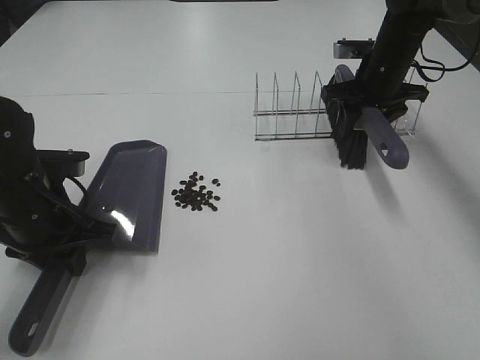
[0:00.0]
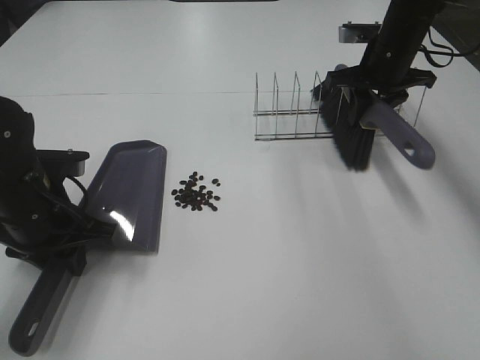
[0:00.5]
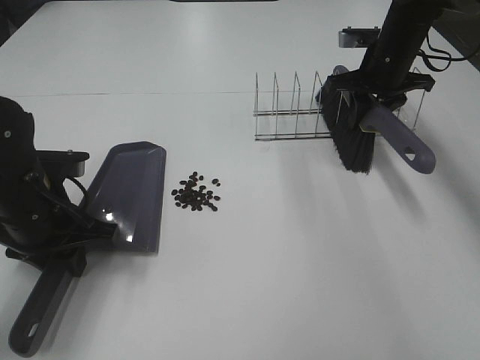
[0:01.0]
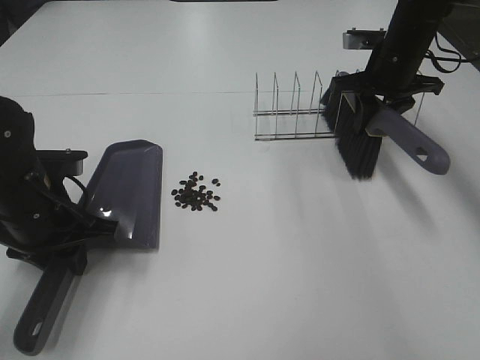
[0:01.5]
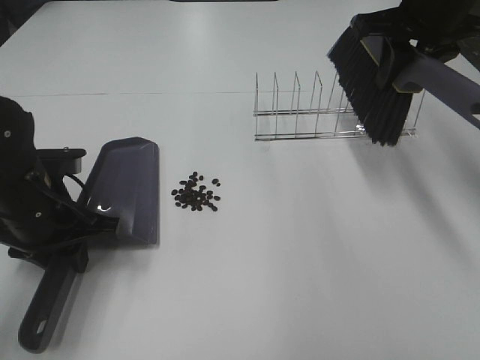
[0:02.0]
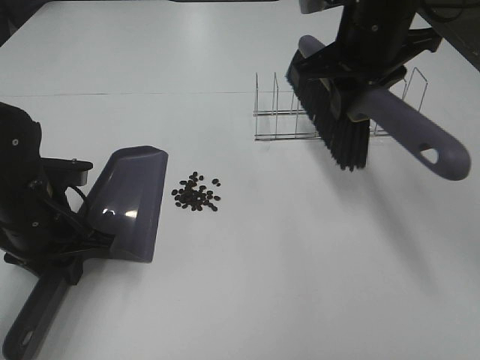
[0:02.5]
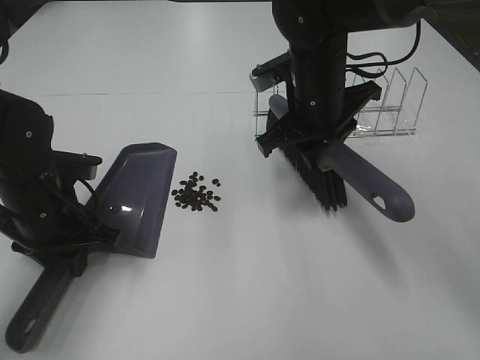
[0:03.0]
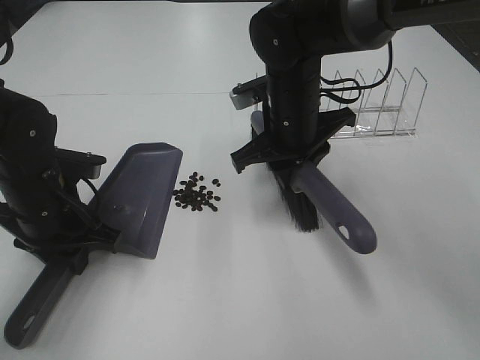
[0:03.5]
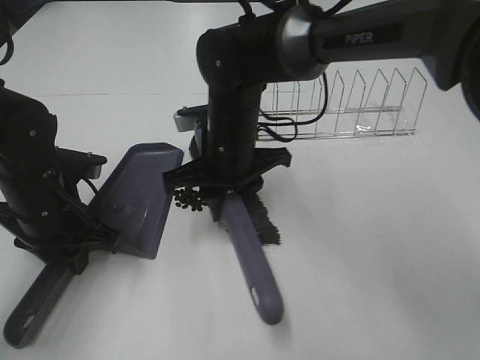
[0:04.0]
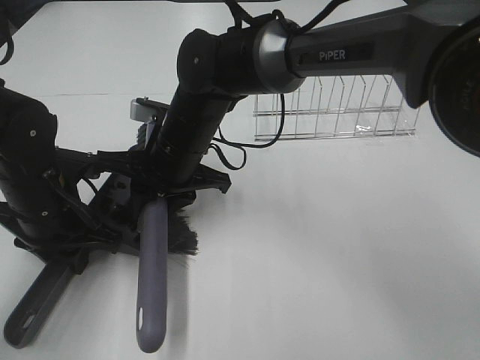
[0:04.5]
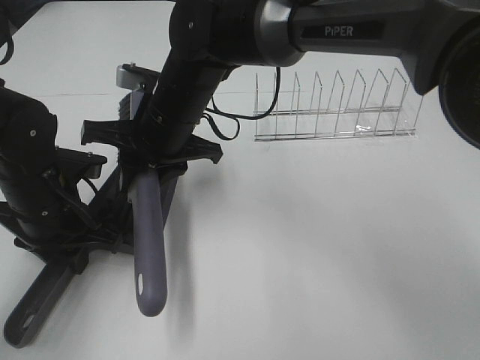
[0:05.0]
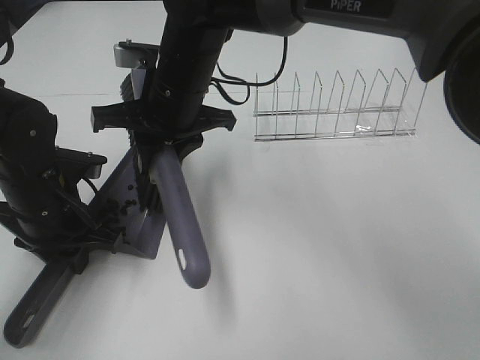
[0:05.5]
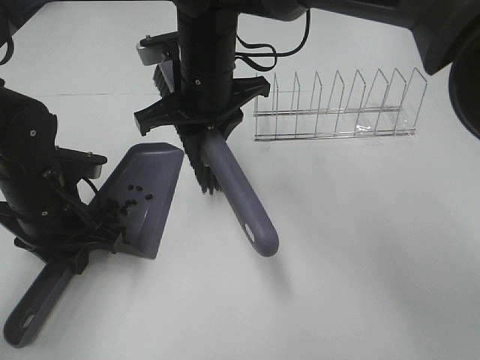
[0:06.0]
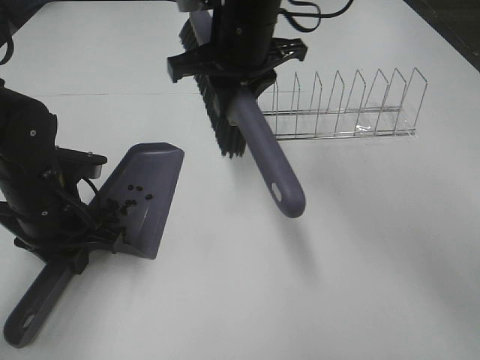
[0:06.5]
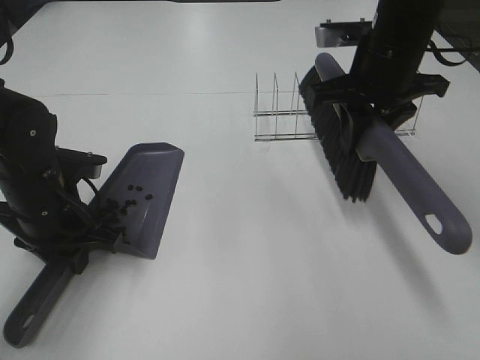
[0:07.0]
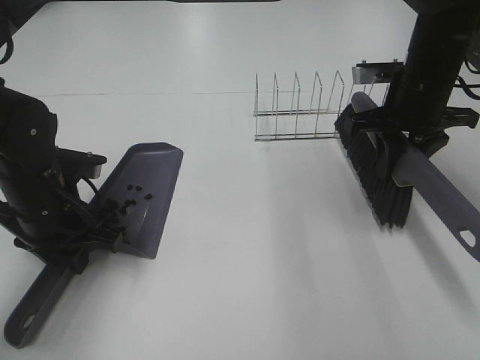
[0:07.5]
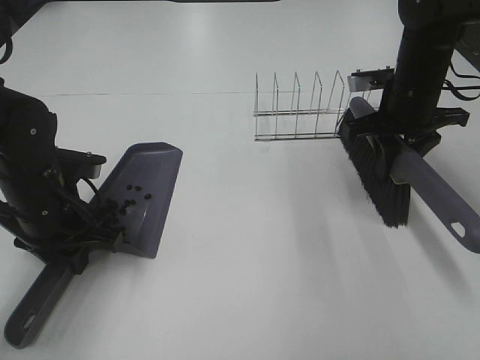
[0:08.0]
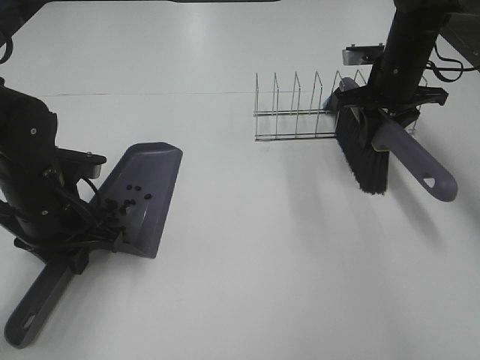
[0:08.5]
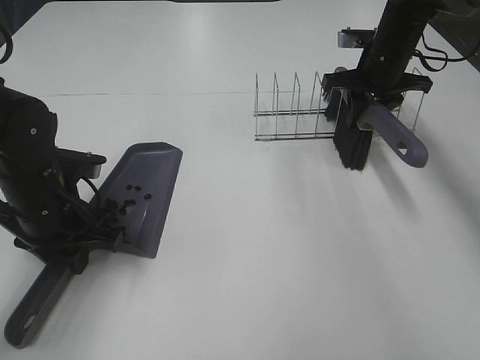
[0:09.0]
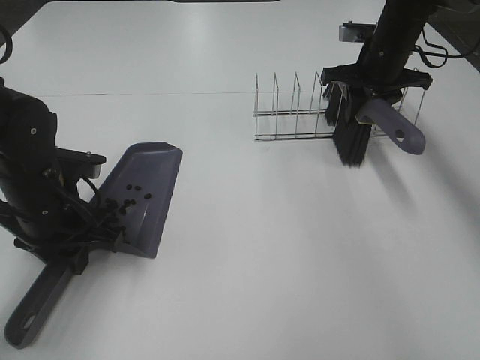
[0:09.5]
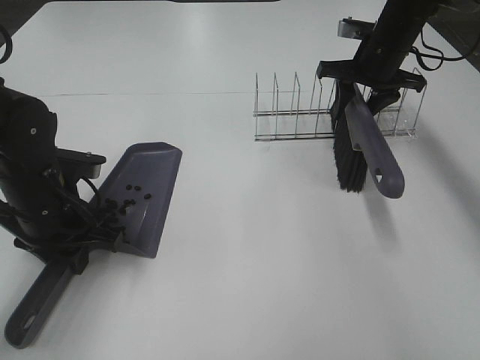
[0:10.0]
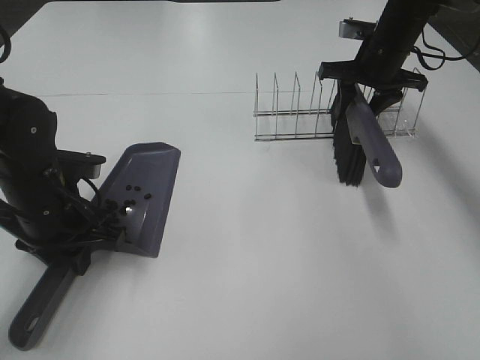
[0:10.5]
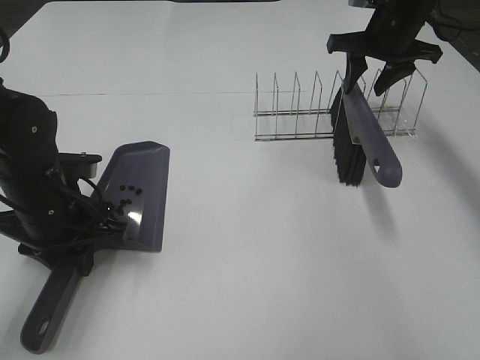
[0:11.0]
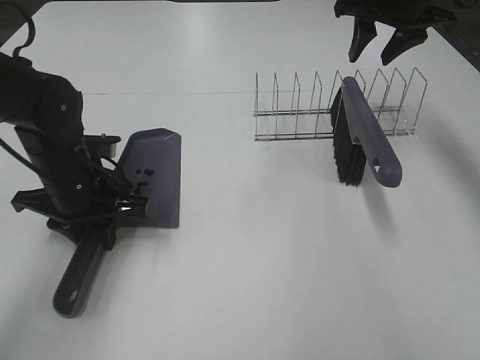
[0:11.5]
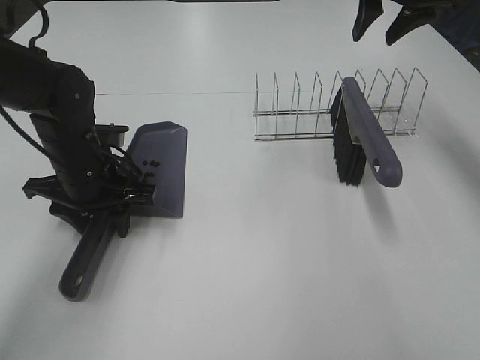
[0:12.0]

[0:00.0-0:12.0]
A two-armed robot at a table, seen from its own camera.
Task of the whole recording: Sweep Coffee Bean.
Step, 0:00.0 to 0:05.5: Right hand:sweep the coffee beans into the dustpan.
Step, 0:06.0 to 0:10.5: Right hand:place the broom on the rack.
0:00.0 to 0:02.0: The right gripper moves upward and backward, about 15 cm.
0:02.0 to 0:04.0: The right gripper shifts some 30 cm to the left and downward.
0:04.0 to 0:06.0: The right gripper heads upward, covering some 10 cm.
0:06.0 to 0:08.0: The right gripper heads to the right, covering approximately 25 cm.
0:08.0 to 0:10.0: The right gripper is displaced forward by approximately 10 cm.
0:10.0 to 0:12.0: The left gripper heads forward, covering about 5 cm. Meanwhile the right gripper goes about 10 cm upward.

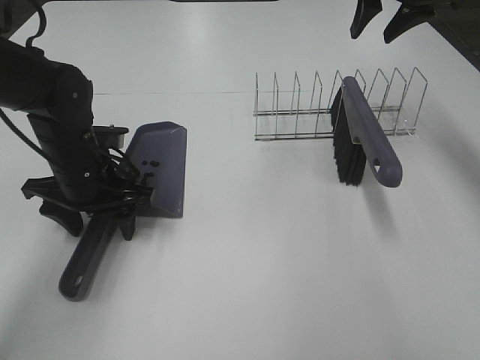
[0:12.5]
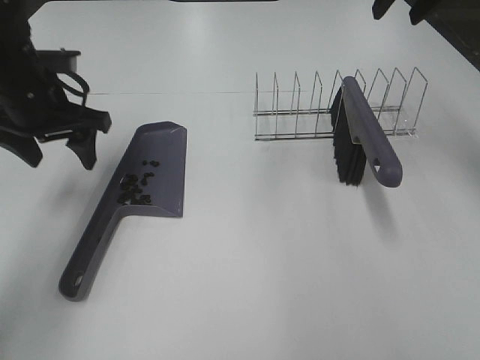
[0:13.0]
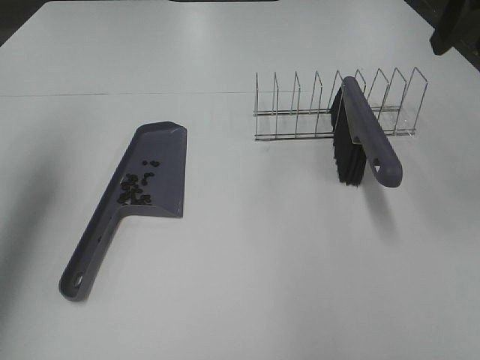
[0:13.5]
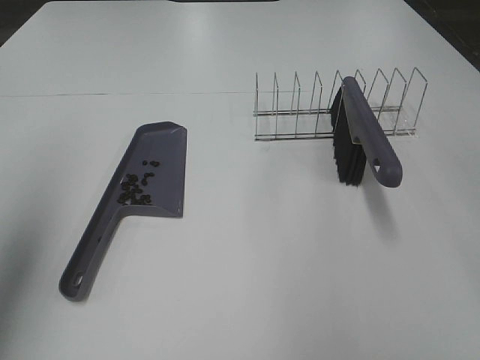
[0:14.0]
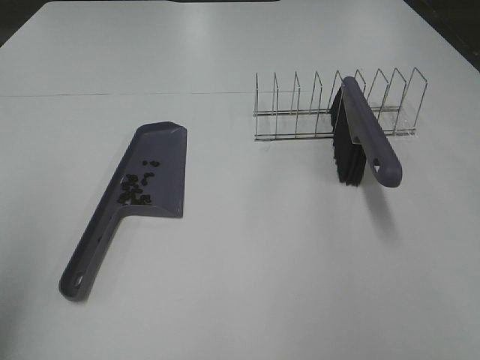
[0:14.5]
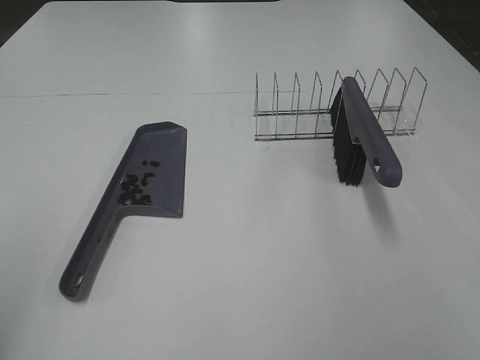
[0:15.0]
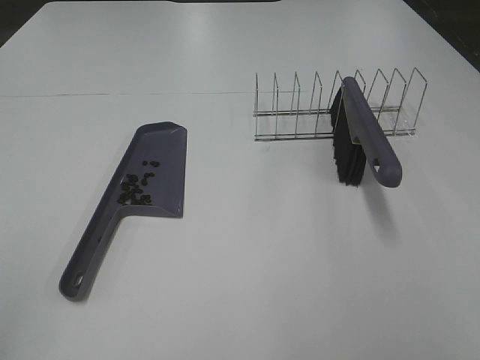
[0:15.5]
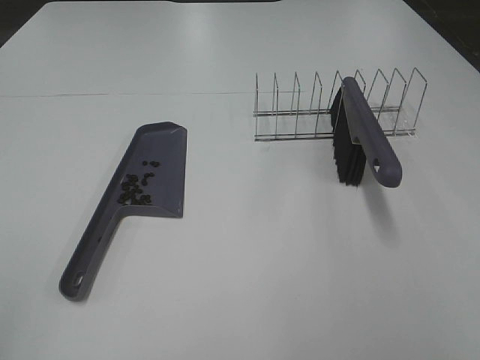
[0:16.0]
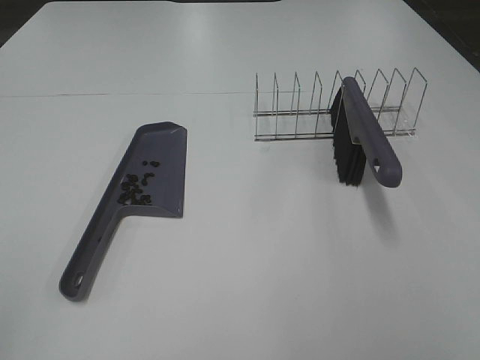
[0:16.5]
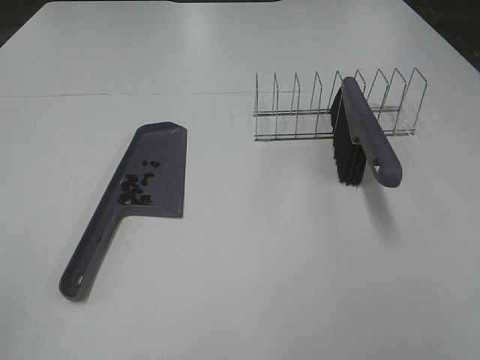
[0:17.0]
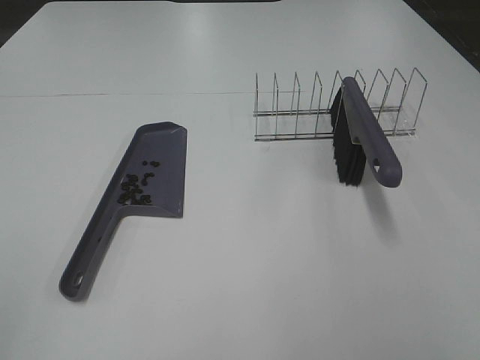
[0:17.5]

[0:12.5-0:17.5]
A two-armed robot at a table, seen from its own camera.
Task of the whole recording: Sweep Coffee Bean.
0:12.5 to 0:15.0: The left gripper is displaced backward, upward and to the left by some 35 cm; the right gripper goes roughly 50 cm backward.

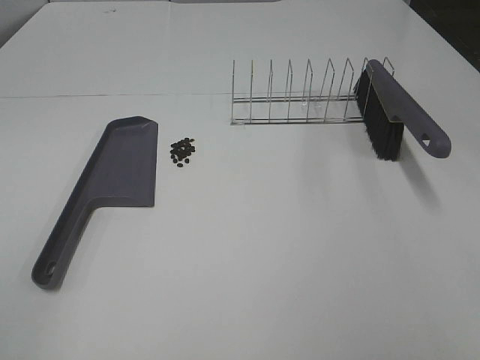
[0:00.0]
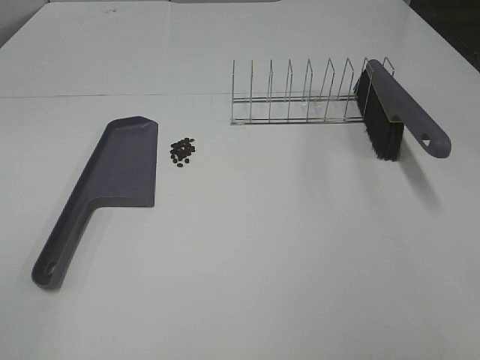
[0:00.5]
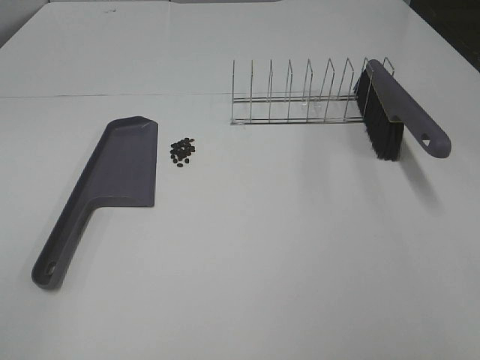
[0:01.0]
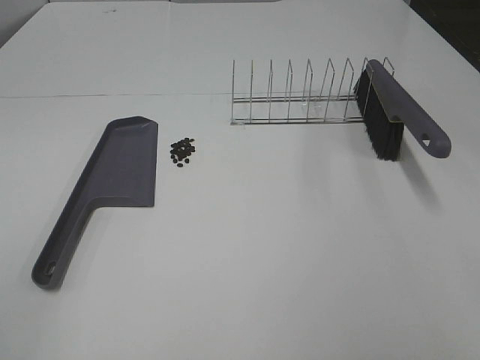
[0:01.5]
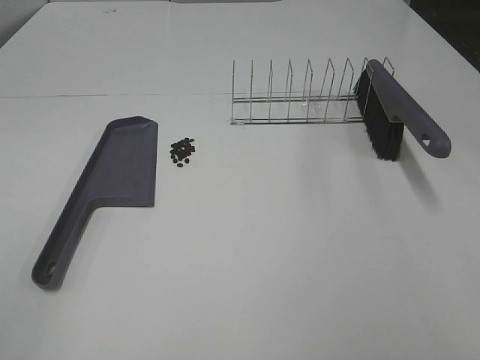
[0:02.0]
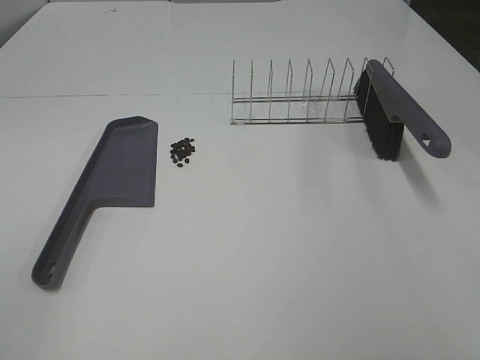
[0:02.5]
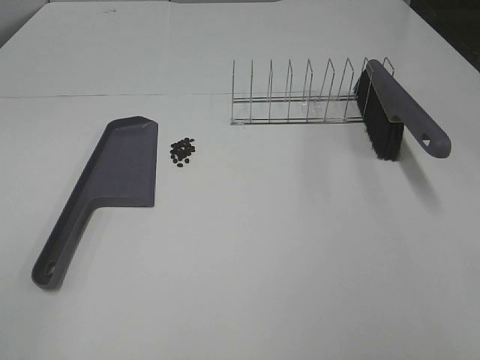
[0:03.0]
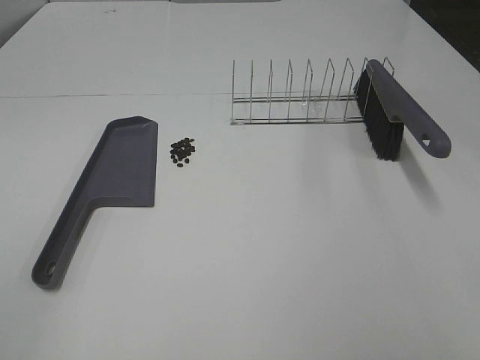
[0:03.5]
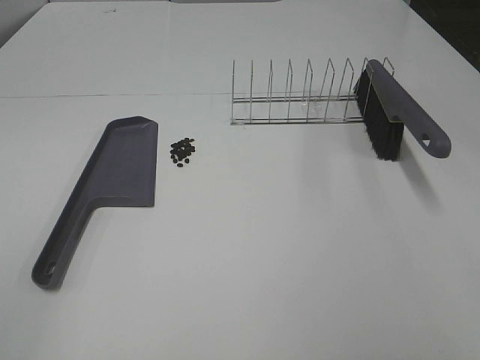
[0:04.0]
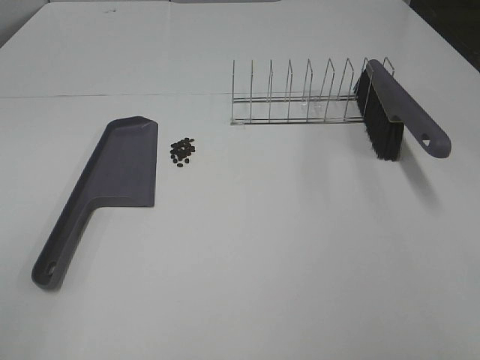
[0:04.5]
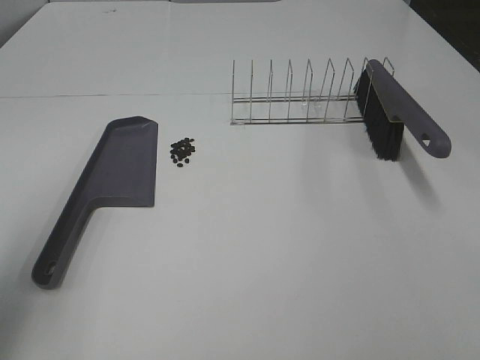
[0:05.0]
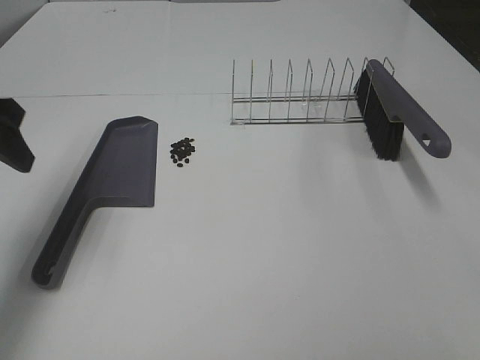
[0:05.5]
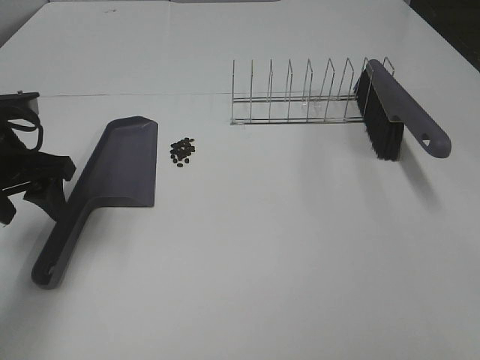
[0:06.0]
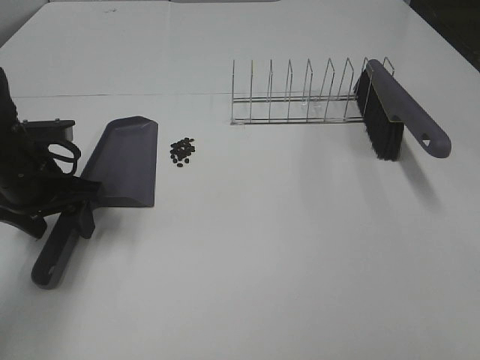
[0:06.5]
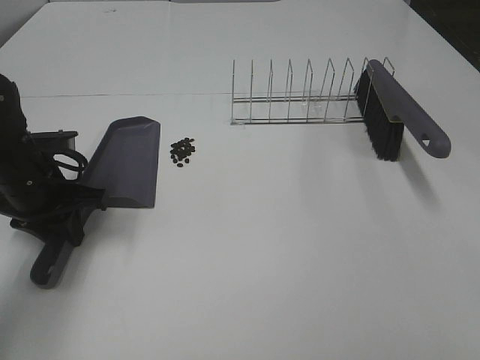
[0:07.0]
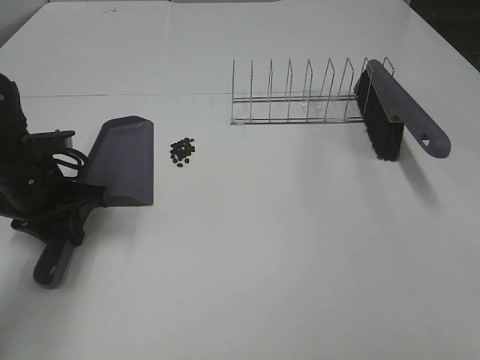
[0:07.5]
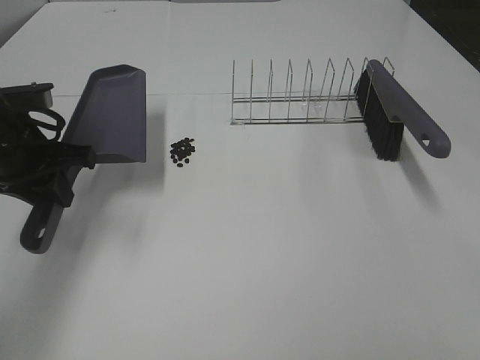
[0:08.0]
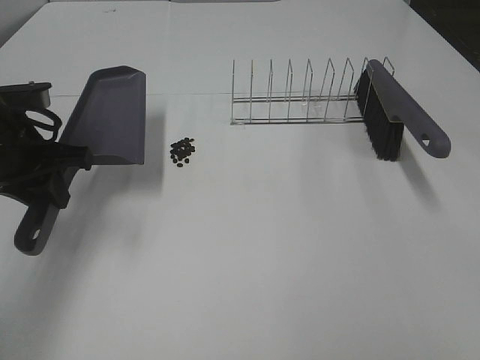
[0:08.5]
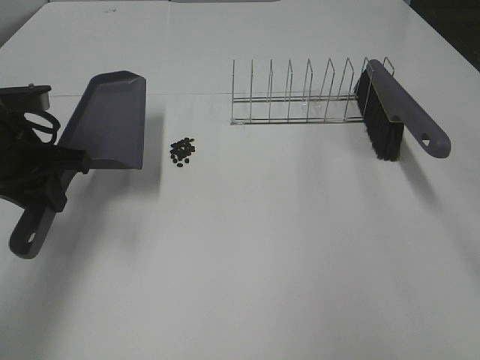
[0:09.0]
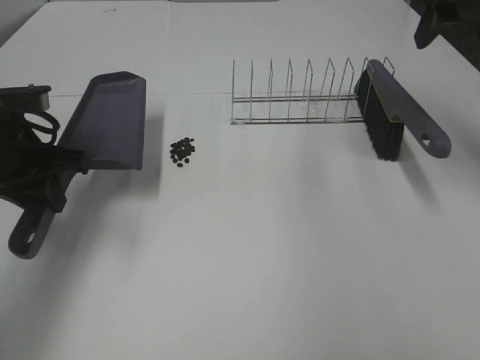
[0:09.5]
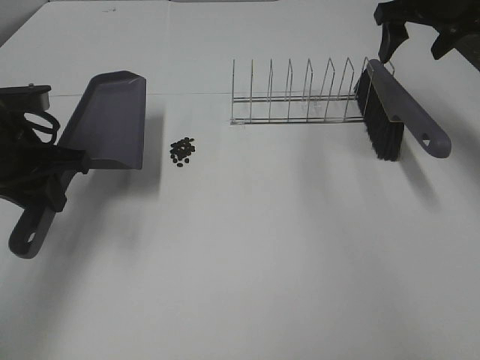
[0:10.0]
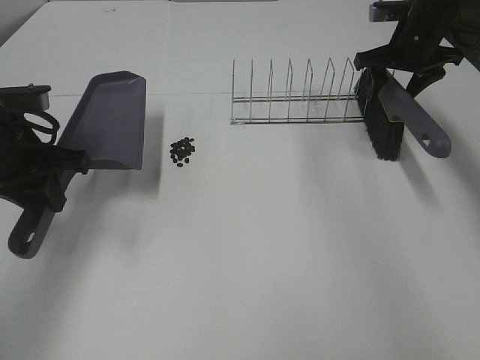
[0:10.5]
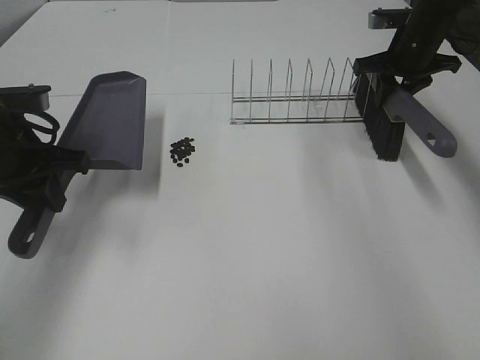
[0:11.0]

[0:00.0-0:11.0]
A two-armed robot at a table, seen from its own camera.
Task of the whole recording: Sweep Coffee Bean.
Step, 0:00.0 to 0:07.0: Left hand: grab the dustpan.
Step, 0:08.5 to 0:10.5: Right hand:grab the broom.
0:00.0 to 0:03.5: Neither gripper changes place.
0:03.5 to 0:05.5: The left gripper travels forward by roughly 30 cm.
0:05.5 to 0:07.5: The left gripper is displaced downward by roughly 15 cm, and closes.
0:07.5 to 0:09.0: The left gripper moves upward, approximately 5 cm.
0:09.0 to 0:11.0: The right gripper goes roughly 40 cm forward and downward, and closes.
